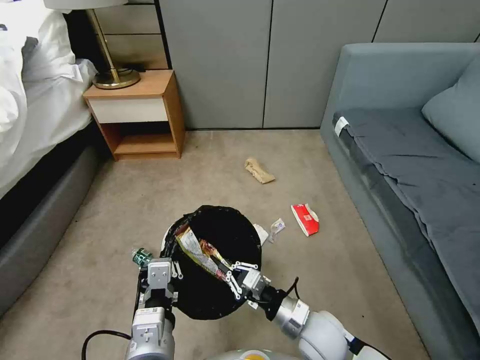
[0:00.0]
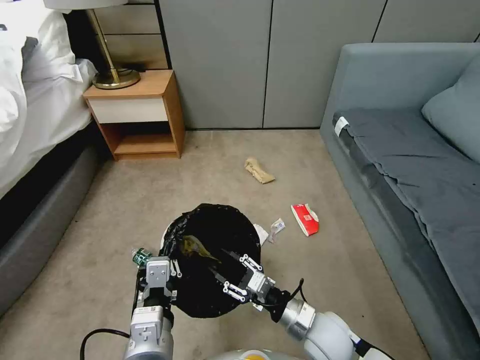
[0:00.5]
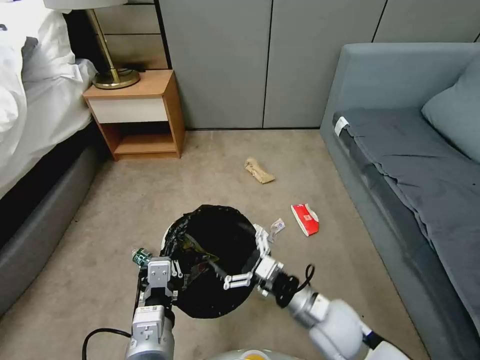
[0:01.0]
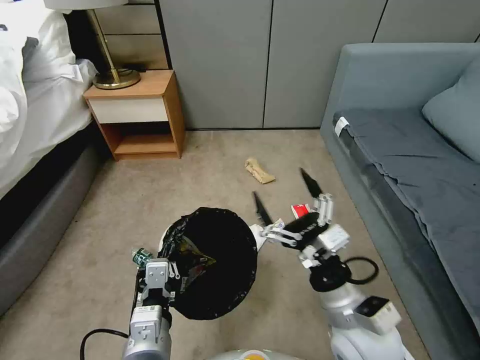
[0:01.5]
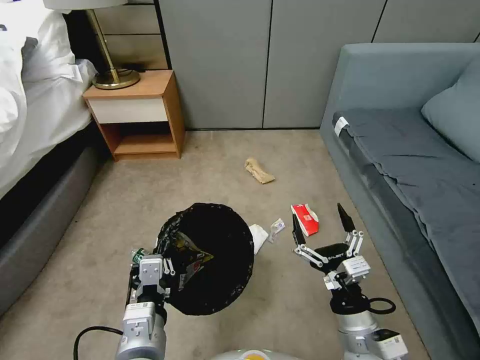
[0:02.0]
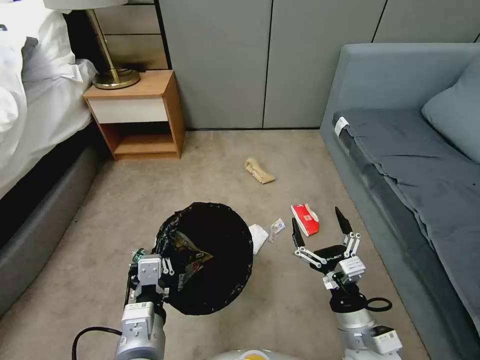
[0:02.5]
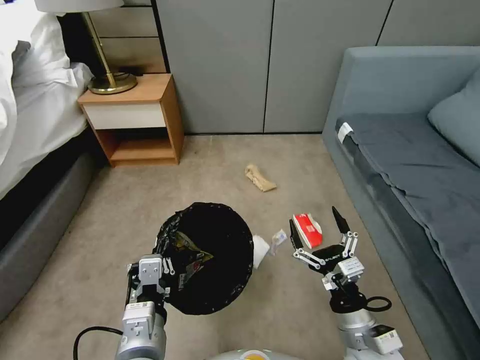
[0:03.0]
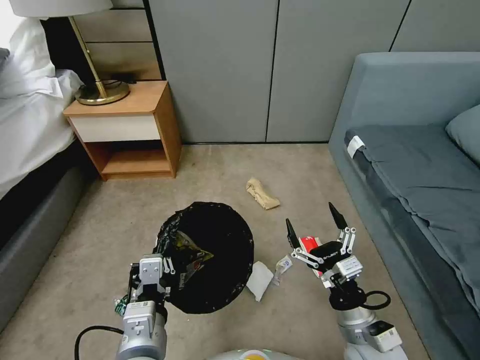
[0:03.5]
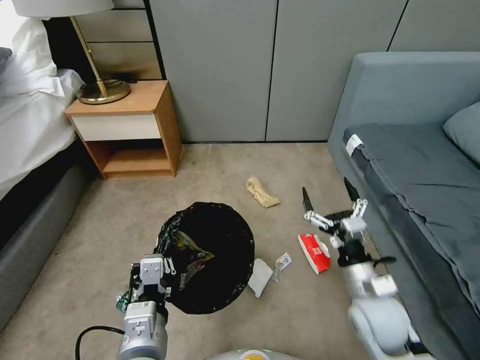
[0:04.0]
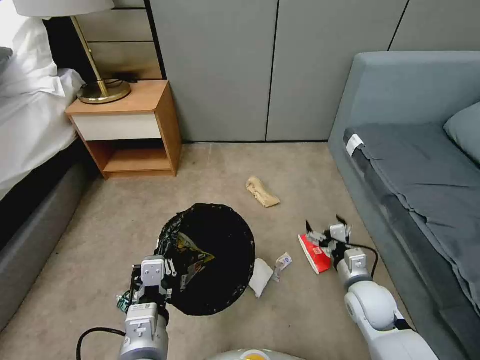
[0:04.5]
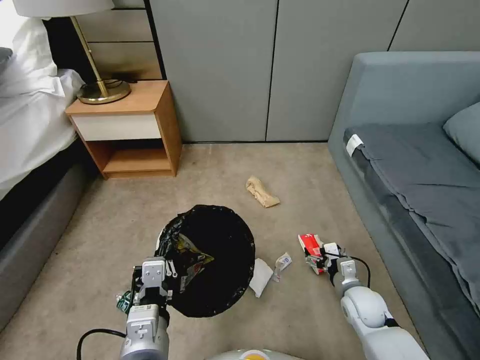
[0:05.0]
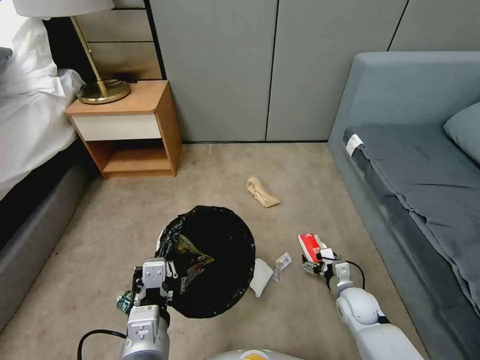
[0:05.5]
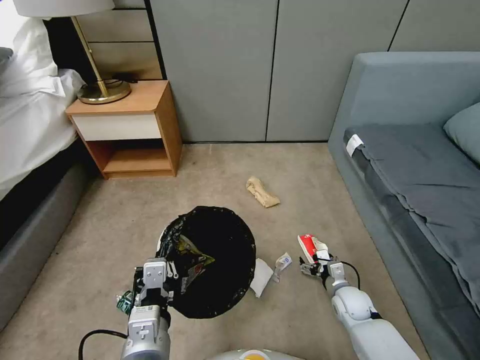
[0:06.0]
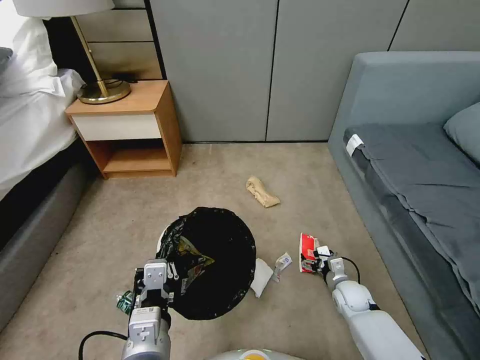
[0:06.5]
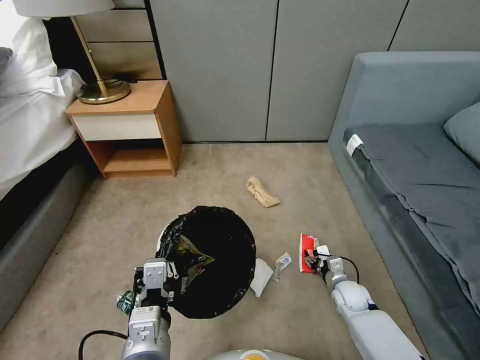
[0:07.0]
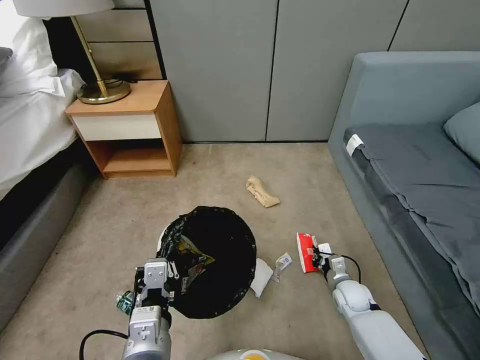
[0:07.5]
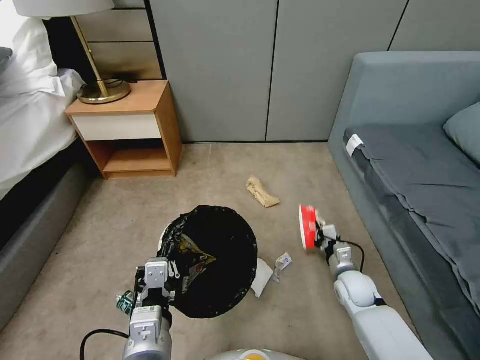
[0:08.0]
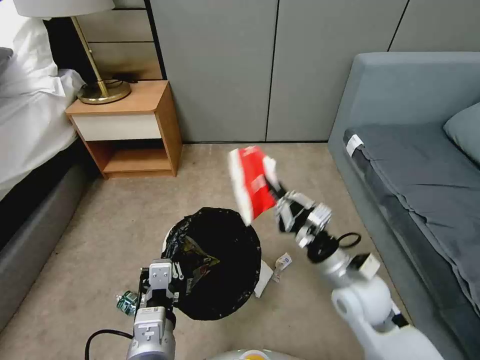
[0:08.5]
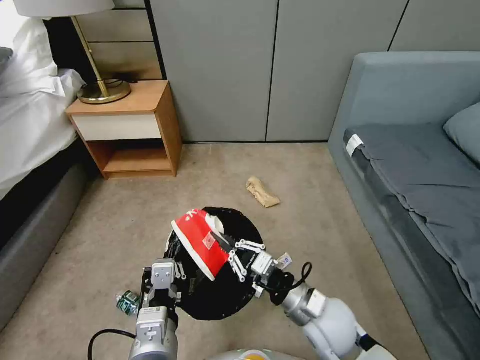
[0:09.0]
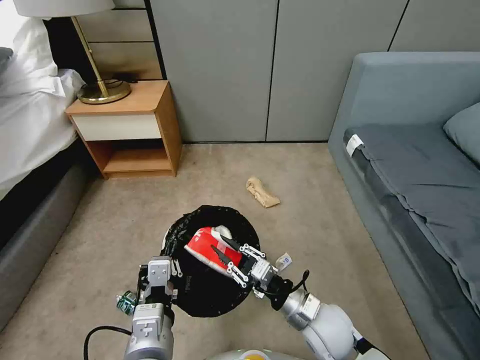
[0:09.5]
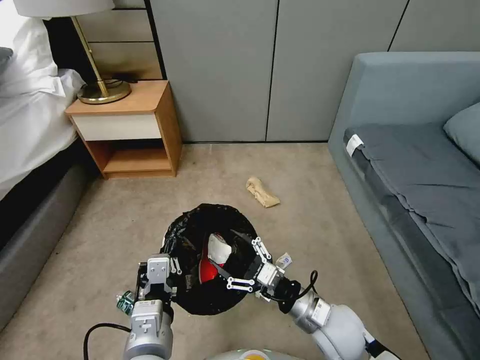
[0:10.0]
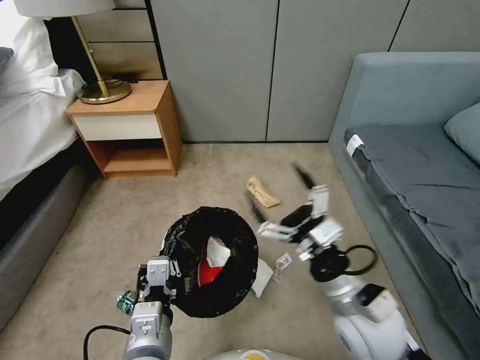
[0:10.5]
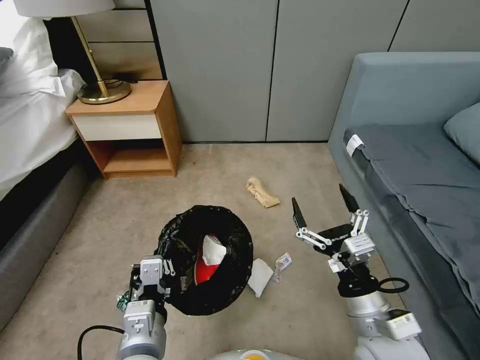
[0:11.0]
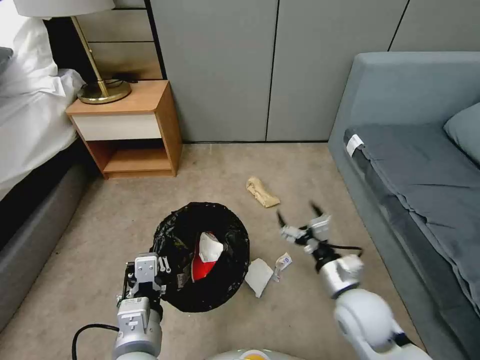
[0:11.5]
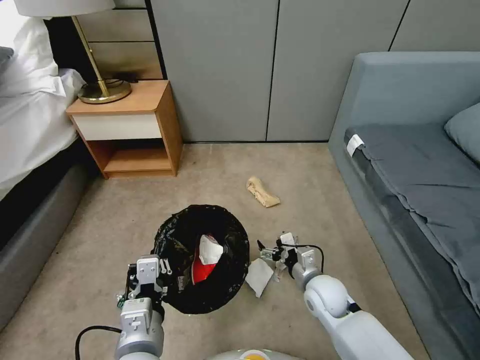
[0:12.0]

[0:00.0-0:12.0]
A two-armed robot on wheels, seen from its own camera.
Task of the whole recording: Pick up the trash bin, then pick up the garbage from the floor and place it into the trash bin.
0:00.0 to 0:02.0: The right gripper heads upward, backward and to the right, covering roughly 10 cm, and opens its fingers.
0:02.0 to 0:04.0: The right gripper moves forward, roughly 10 cm.
0:04.0 to 0:06.0: The right gripper travels downward by roughly 20 cm.
0:06.0 to 0:08.0: The right gripper moves approximately 5 cm, and closes.
0:08.0 to 0:10.0: The right gripper is displaced to the left, upward and backward by roughly 20 cm, and opens.
0:10.0 to 0:12.0: The right gripper is displaced forward and downward by about 10 cm.

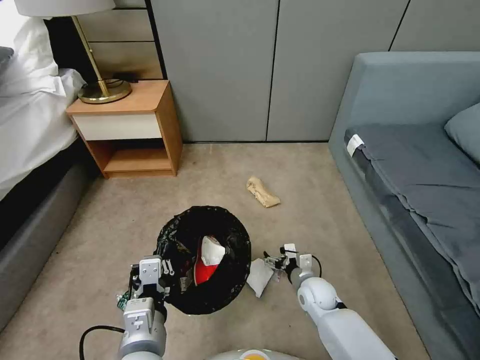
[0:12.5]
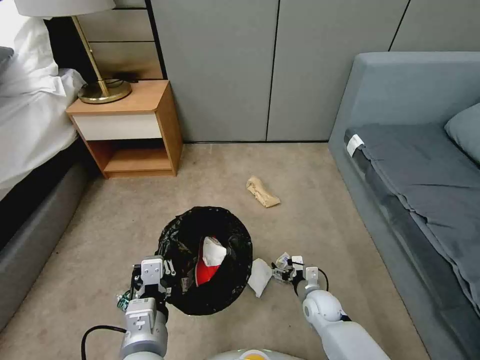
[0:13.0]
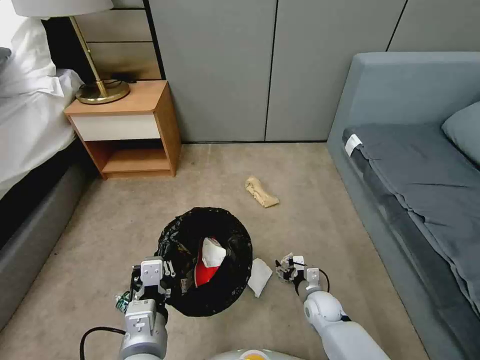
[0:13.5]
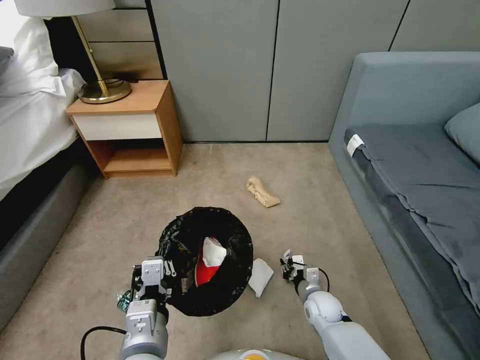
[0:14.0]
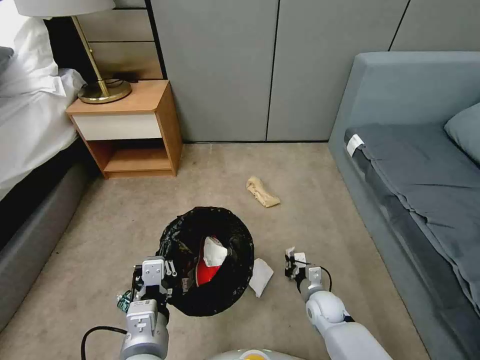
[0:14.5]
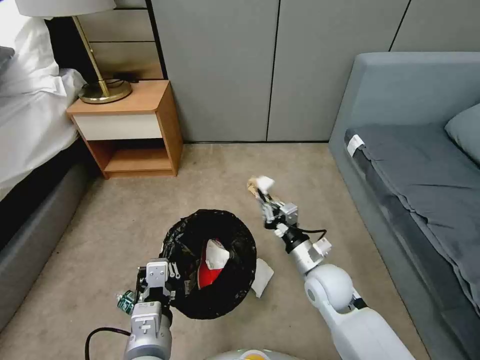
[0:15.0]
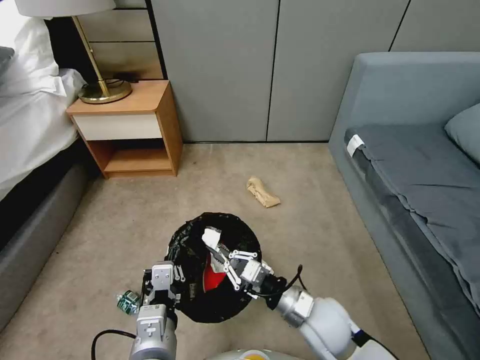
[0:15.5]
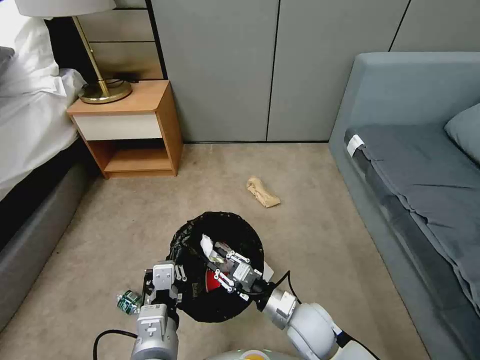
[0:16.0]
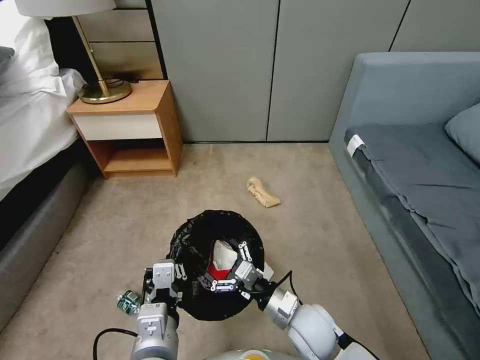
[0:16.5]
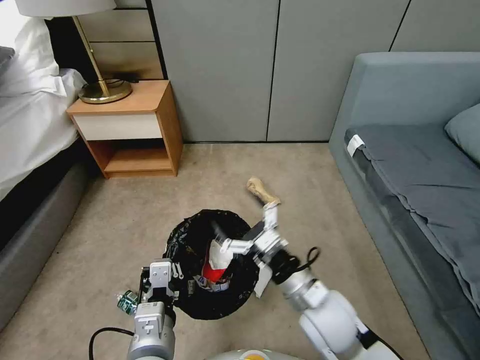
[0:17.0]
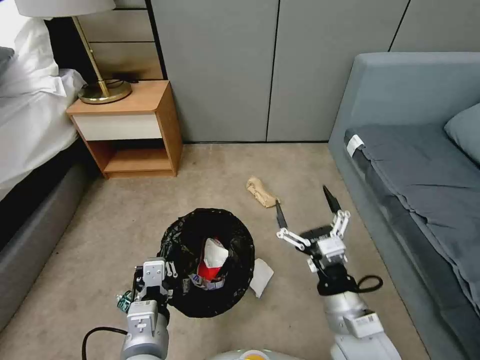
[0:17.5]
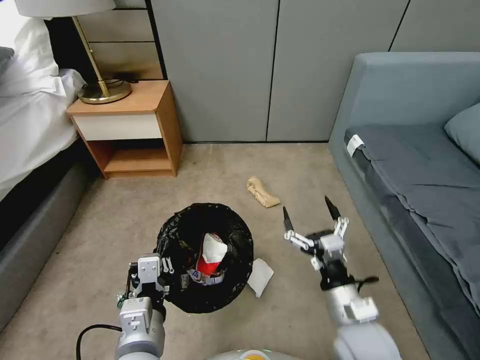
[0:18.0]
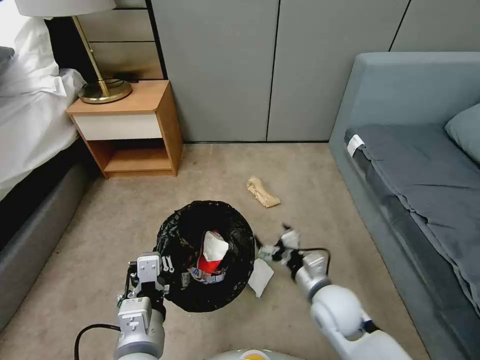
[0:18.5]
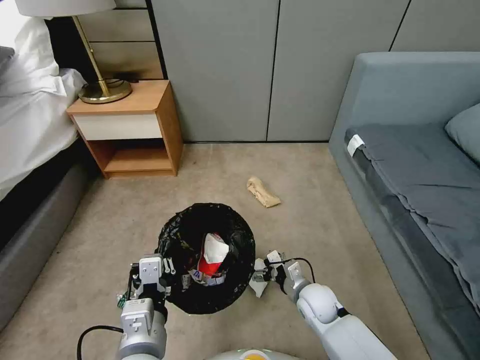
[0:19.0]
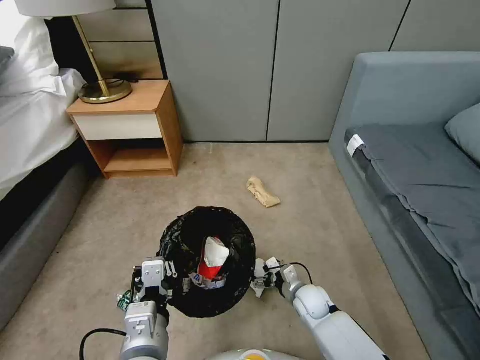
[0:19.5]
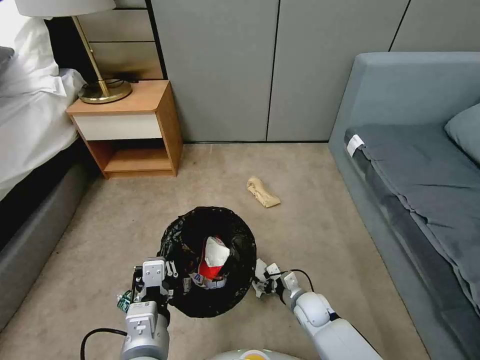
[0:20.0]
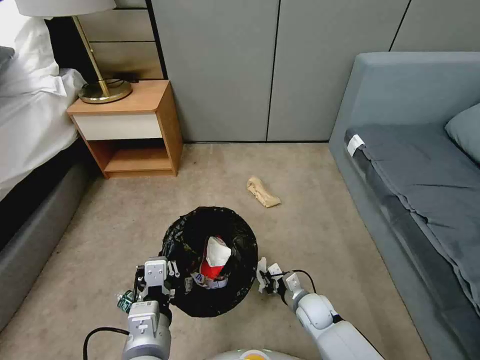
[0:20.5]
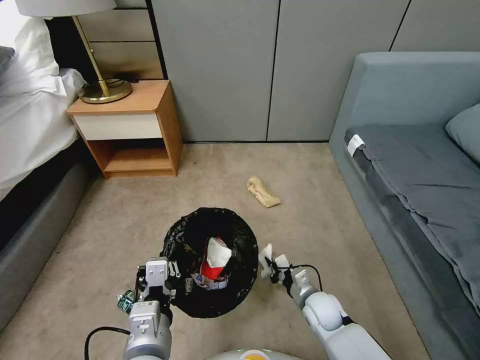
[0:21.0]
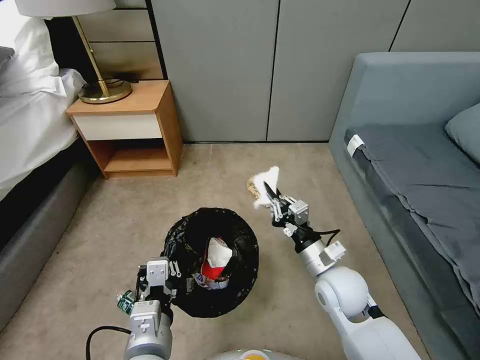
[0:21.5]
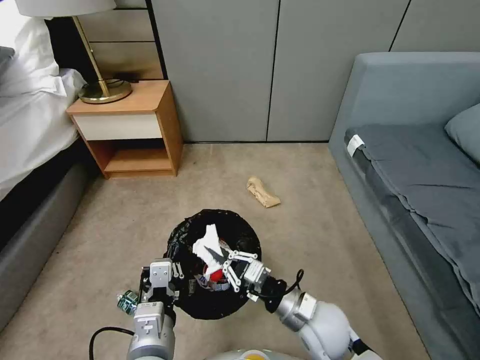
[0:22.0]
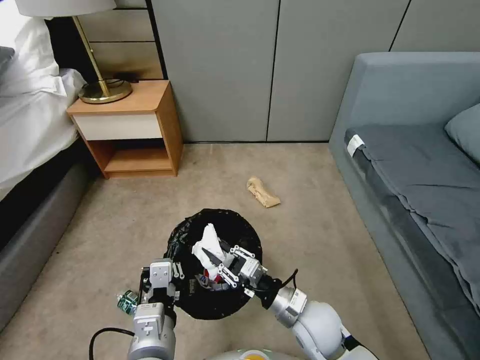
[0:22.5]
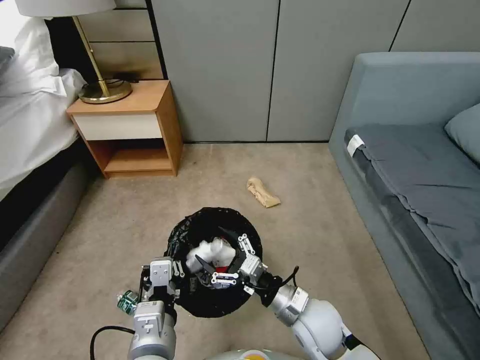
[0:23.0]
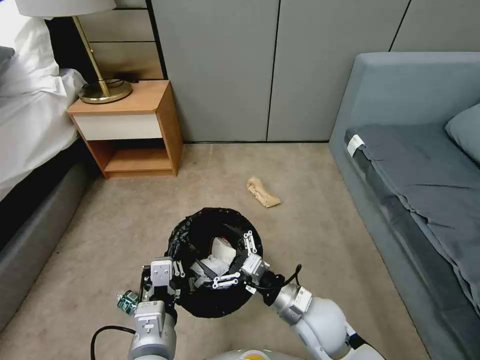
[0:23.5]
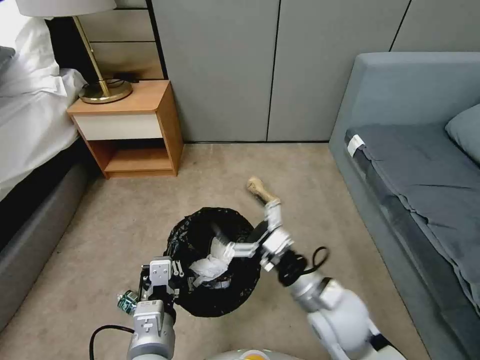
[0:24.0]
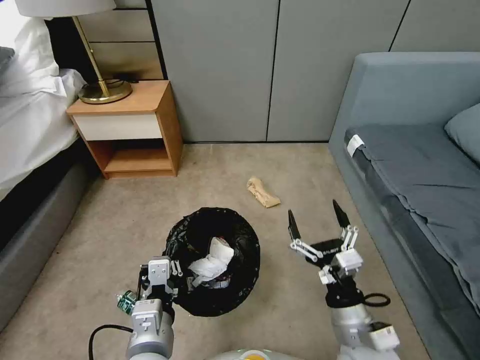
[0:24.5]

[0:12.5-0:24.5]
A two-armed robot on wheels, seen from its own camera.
Task of the whole recording: Pick up the trash bin, then pick up the garbage from the floor and place it into the trash bin.
0:12.5 to 0:14.5: The right gripper changes place by approximately 5 cm, and closes.
0:14.5 to 0:16.5: The right gripper moves upward, to the left and backward, some 20 cm, and opens its fingers.
0:16.5 to 0:18.5: The right gripper moves to the right, some 5 cm, and moves roughly 10 cm upward and comes back.
0:18.5 to 0:20.5: The right gripper shifts roughly 15 cm downward, and closes up.
0:20.5 to 0:22.5: The right gripper goes some 15 cm upward.
0:22.5 to 0:24.5: The right gripper moves backward, upward and to the right, about 10 cm, and opens up.

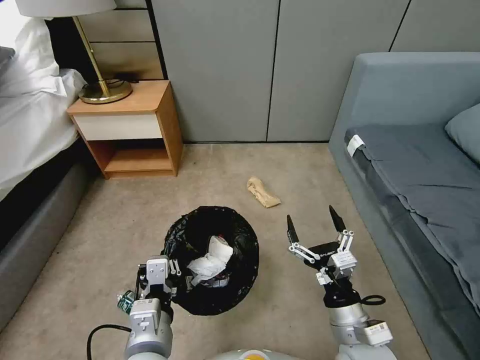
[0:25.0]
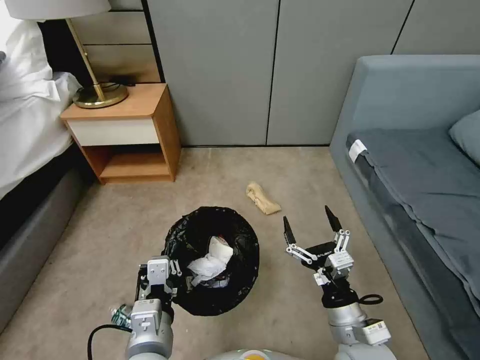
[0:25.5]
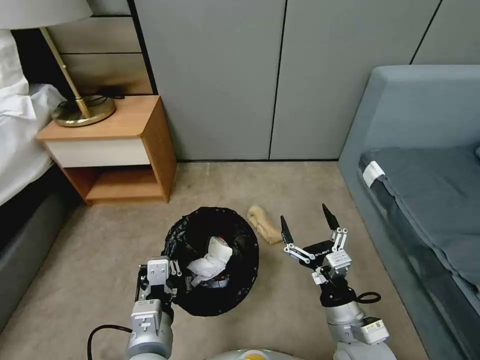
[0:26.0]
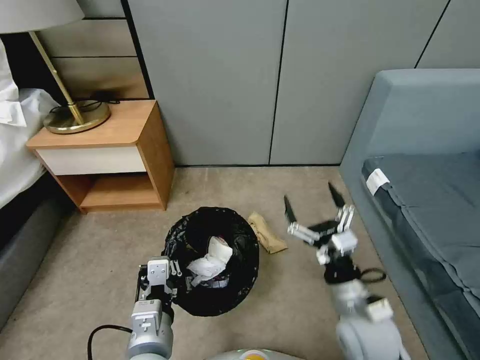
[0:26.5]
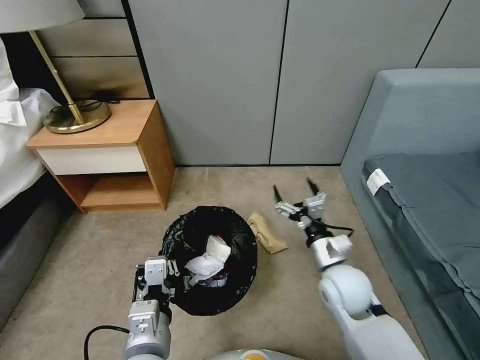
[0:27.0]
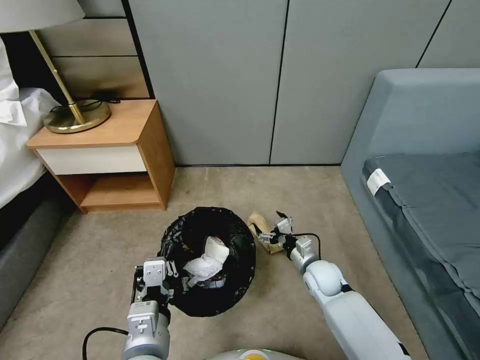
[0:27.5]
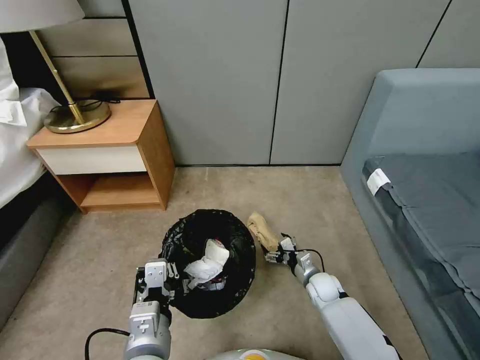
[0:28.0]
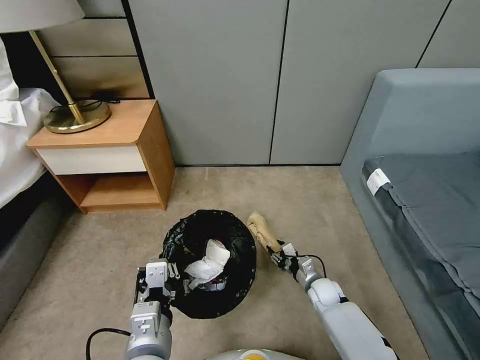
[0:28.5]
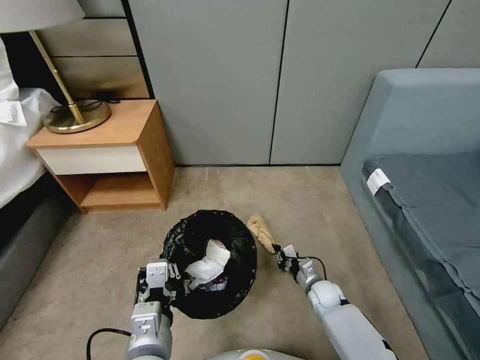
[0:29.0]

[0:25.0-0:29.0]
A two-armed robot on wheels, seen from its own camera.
Task of the whole recording: Pick up the trash bin, then pick up the garbage from the floor and place it into the trash bin.
0:25.0 to 0:27.0: The right gripper moves forward, approximately 10 cm.
0:27.0 to 0:29.0: The right gripper shifts roughly 25 cm downward, and closes.
